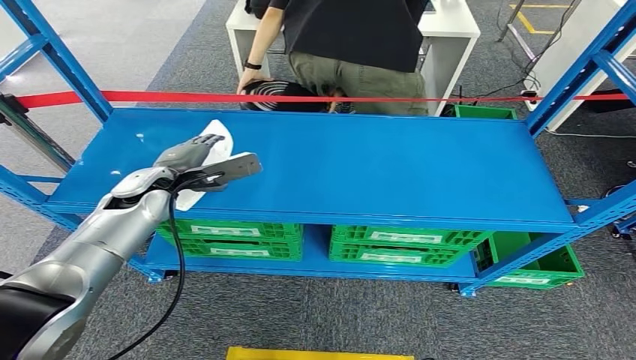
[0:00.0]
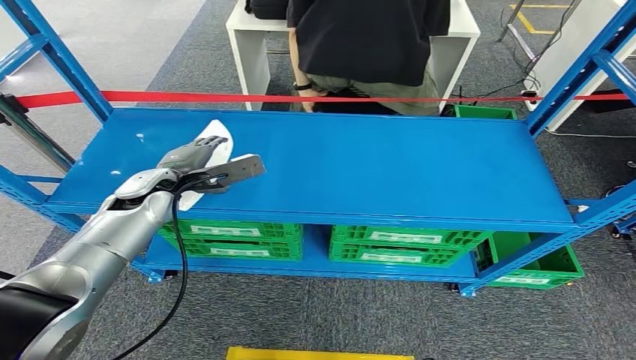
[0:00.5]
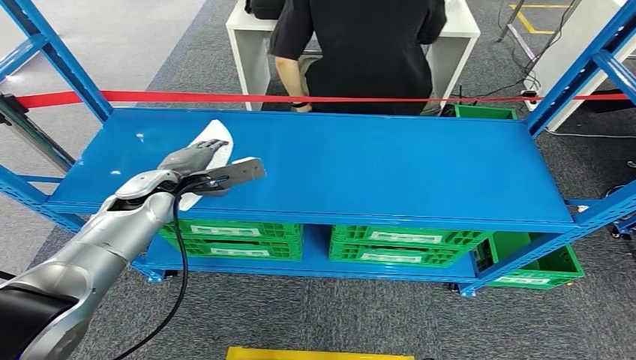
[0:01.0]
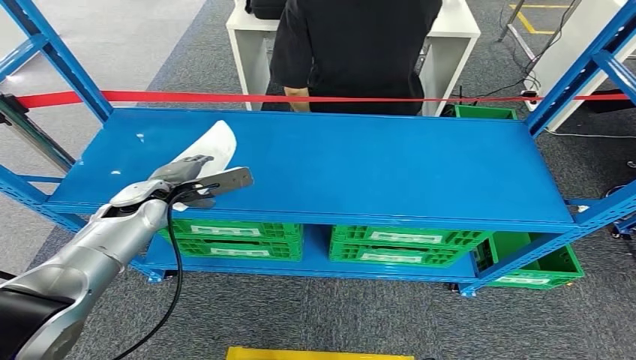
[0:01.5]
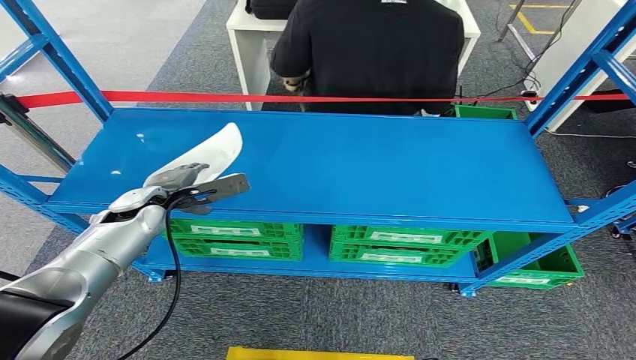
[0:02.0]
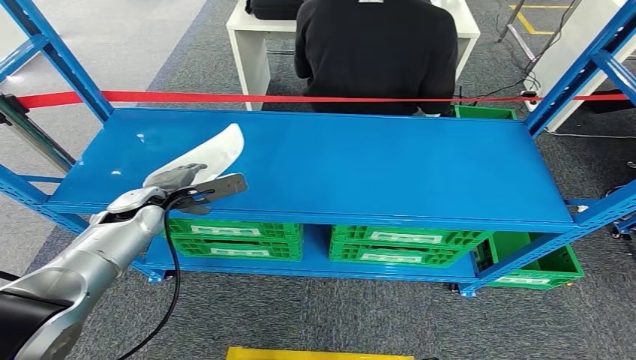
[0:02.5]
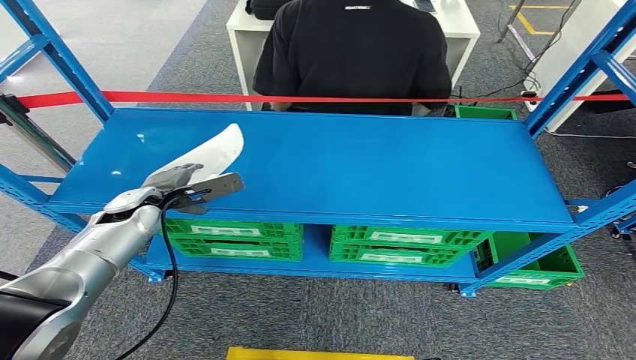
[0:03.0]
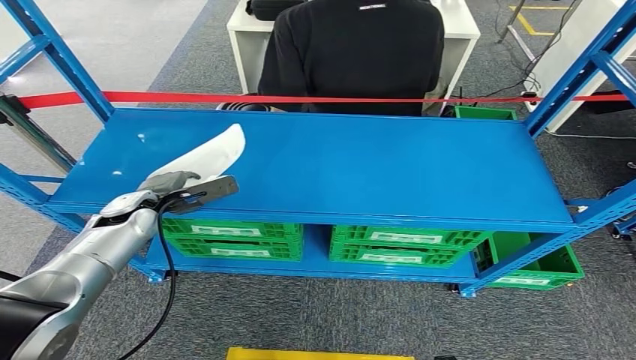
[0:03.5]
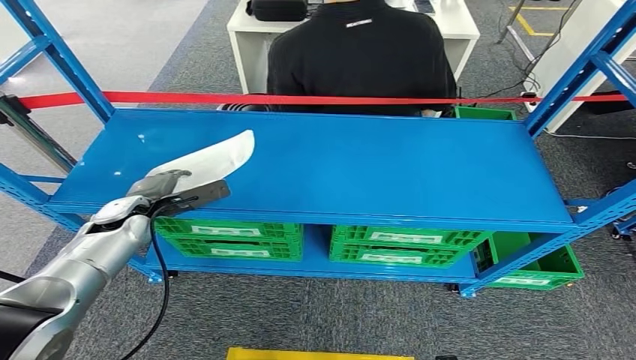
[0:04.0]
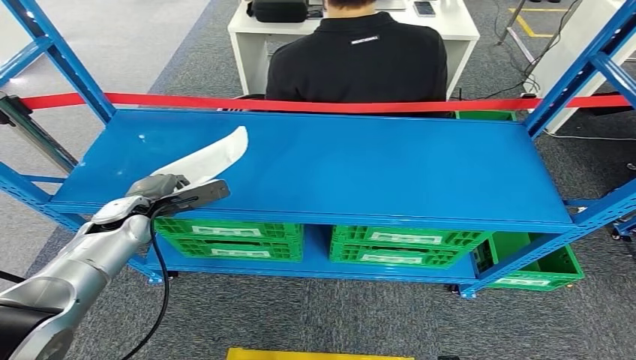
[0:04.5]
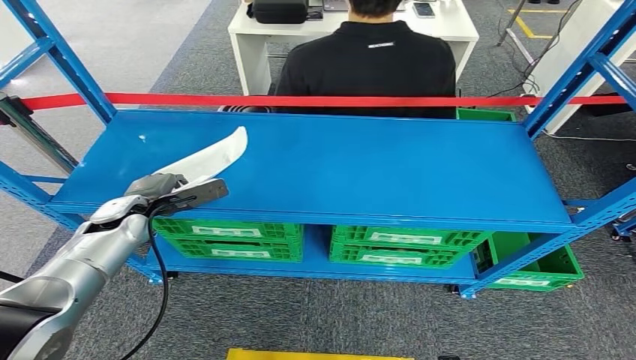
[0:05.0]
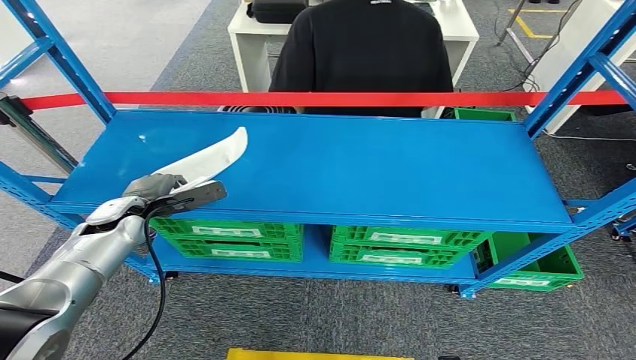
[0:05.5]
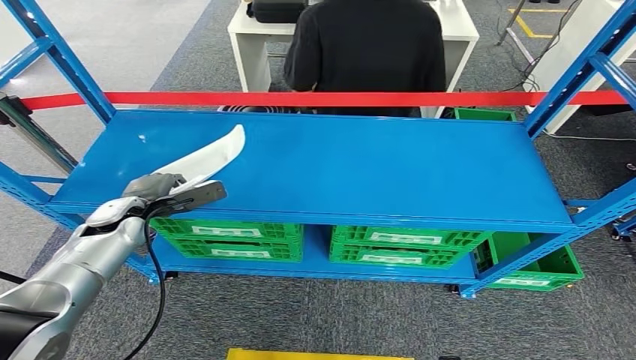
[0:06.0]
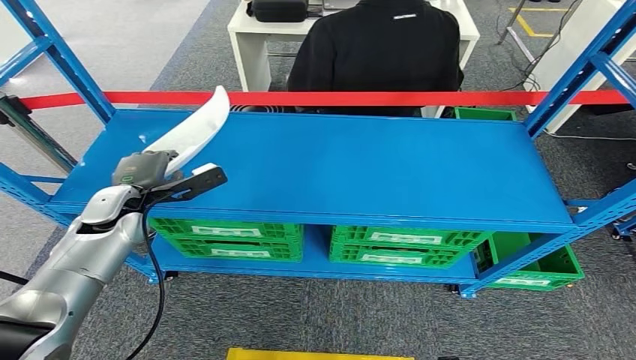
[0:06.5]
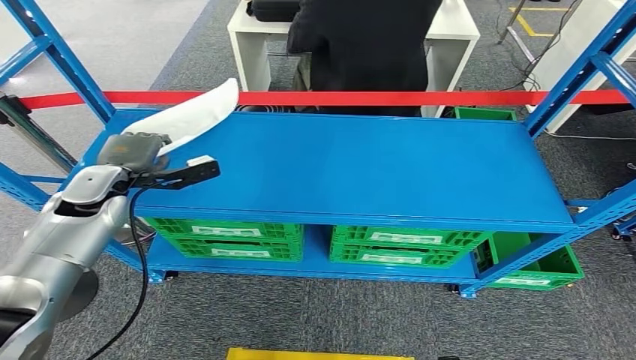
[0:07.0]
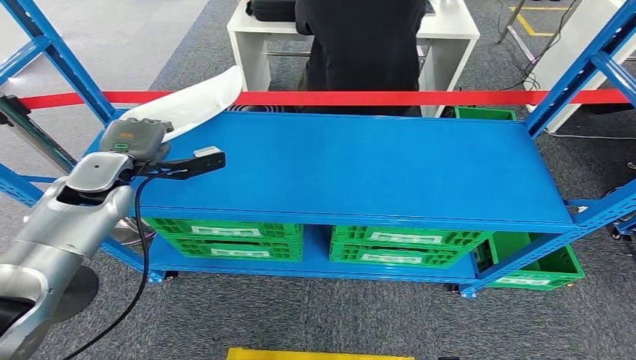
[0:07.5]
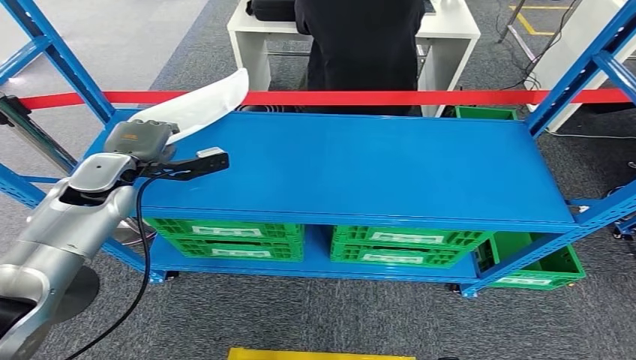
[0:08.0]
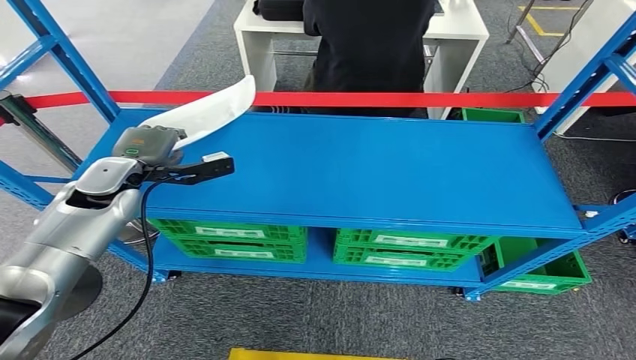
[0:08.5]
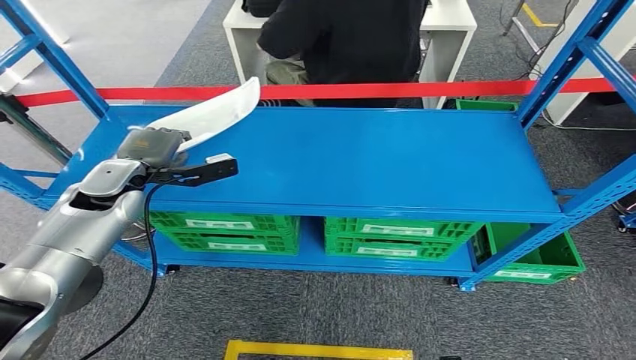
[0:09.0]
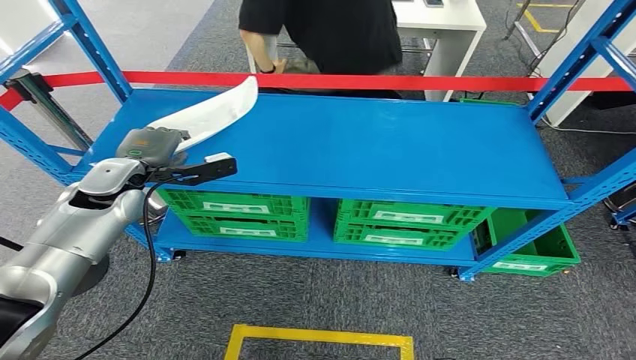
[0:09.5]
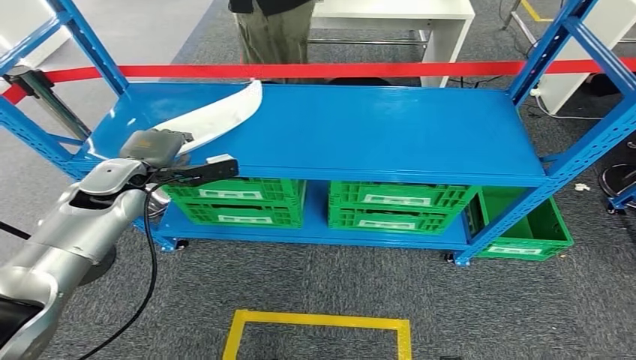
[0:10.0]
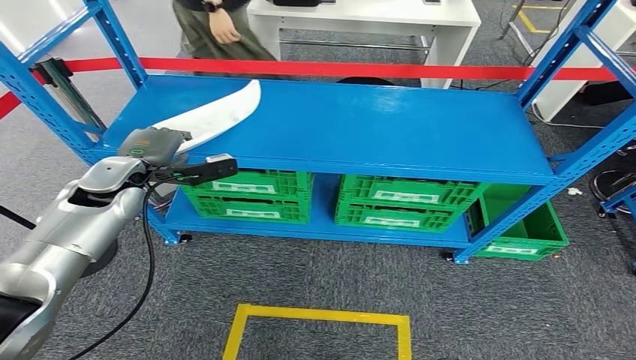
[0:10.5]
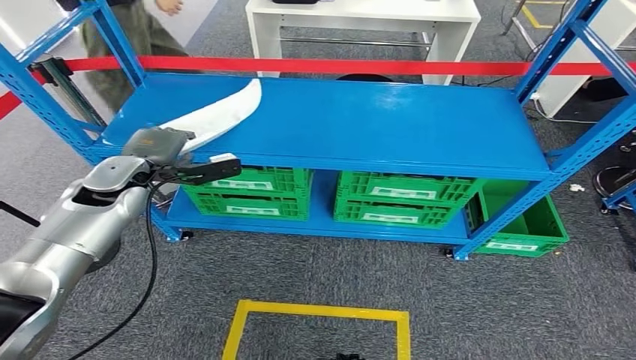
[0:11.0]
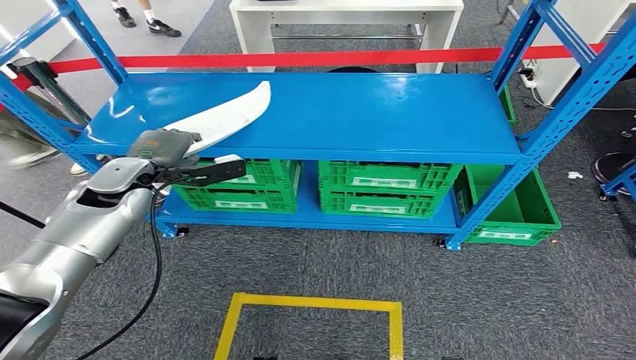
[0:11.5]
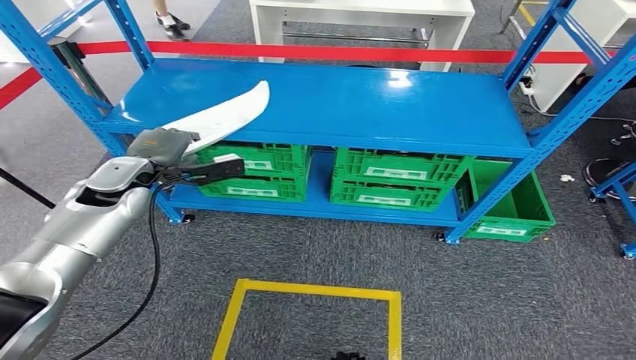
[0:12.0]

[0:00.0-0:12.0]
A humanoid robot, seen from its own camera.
Step, 0:00.0 to 0:07.5: Pick up the small parts from the shelf.
0:00.0 to 0:02.0: The left hand shifts by roughly 5 cm.
0:02.0 to 0:06.0: The hands make only small movements.
0:06.0 to 0:08.0: The left hand moves upward, roughly 10 cm.

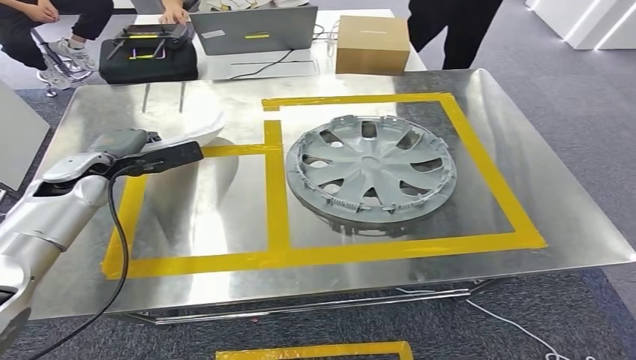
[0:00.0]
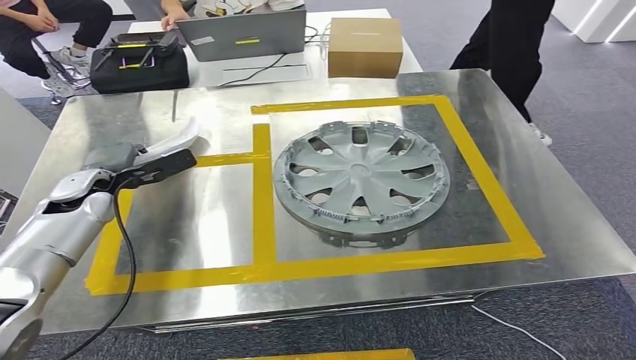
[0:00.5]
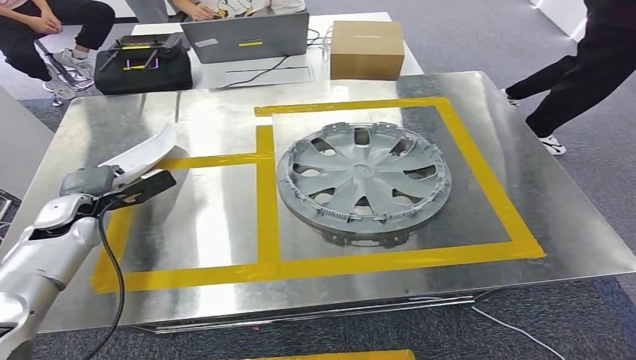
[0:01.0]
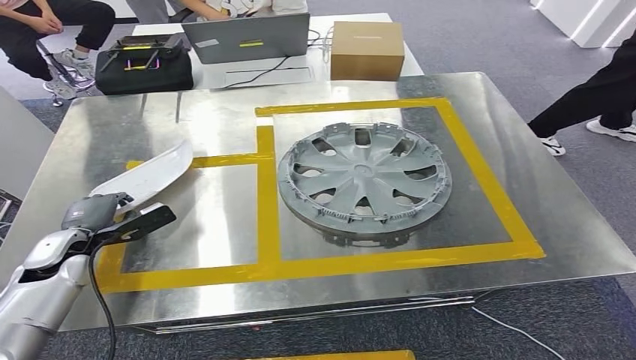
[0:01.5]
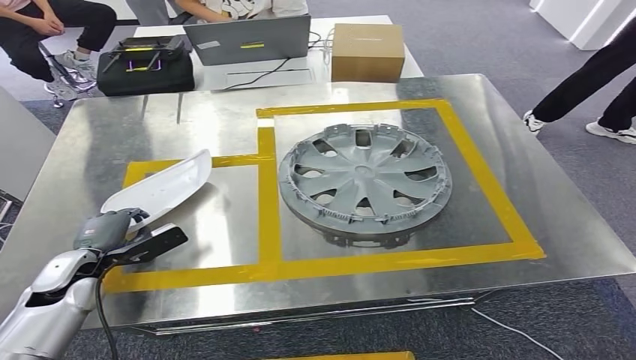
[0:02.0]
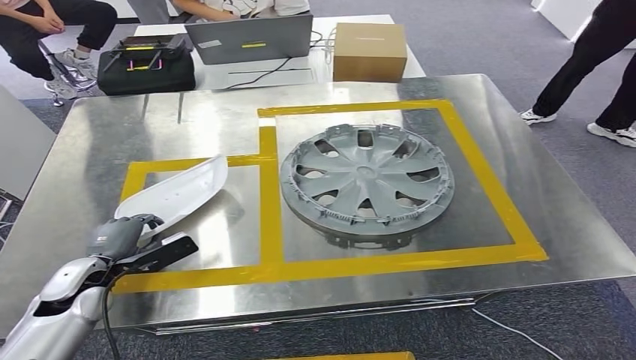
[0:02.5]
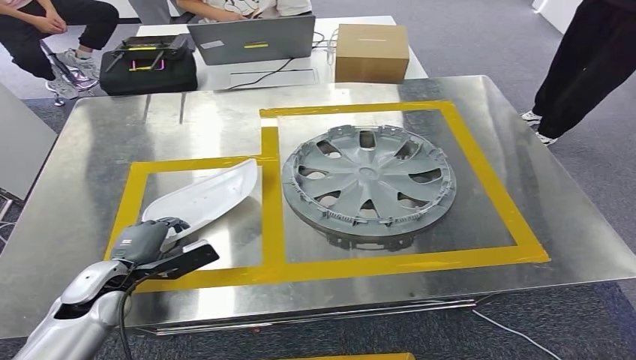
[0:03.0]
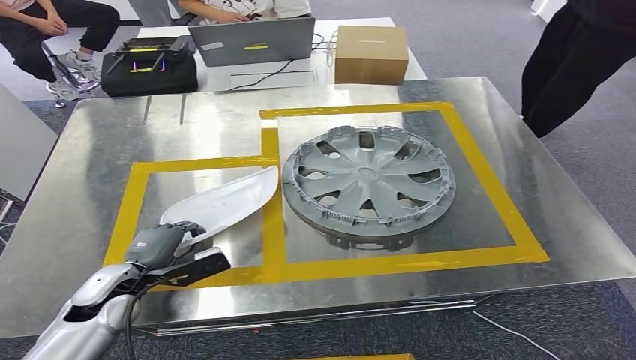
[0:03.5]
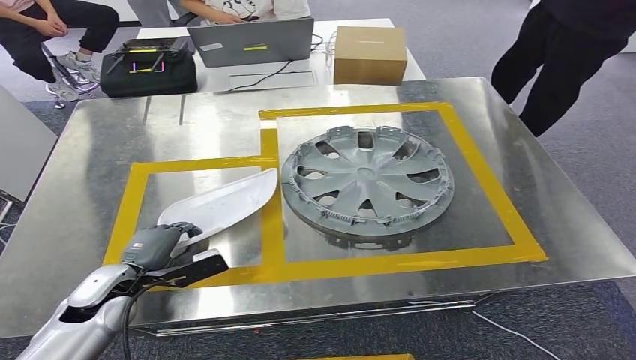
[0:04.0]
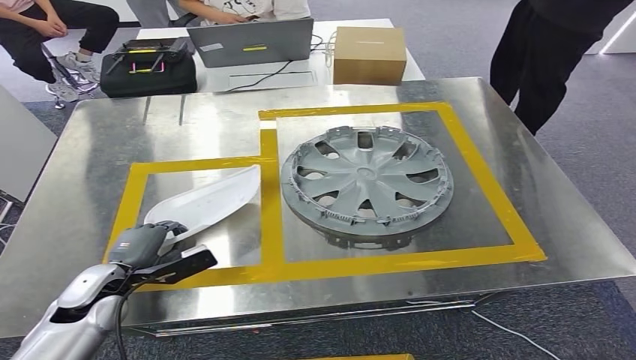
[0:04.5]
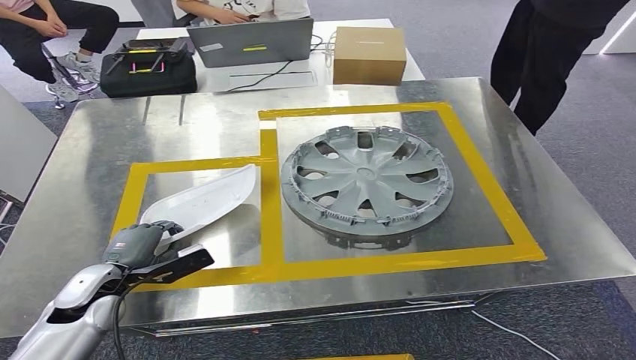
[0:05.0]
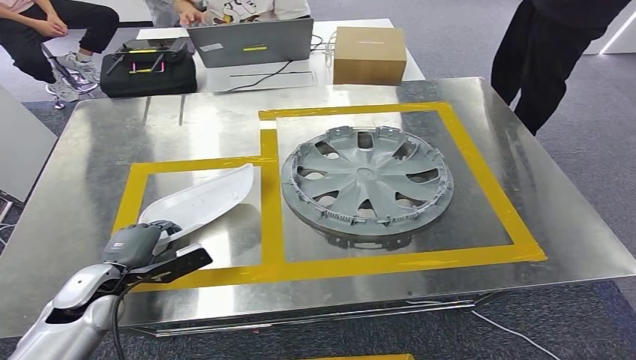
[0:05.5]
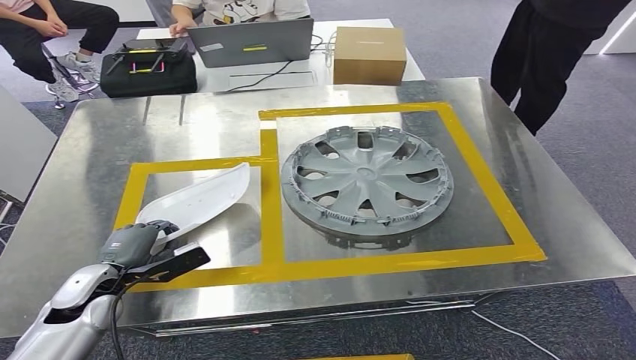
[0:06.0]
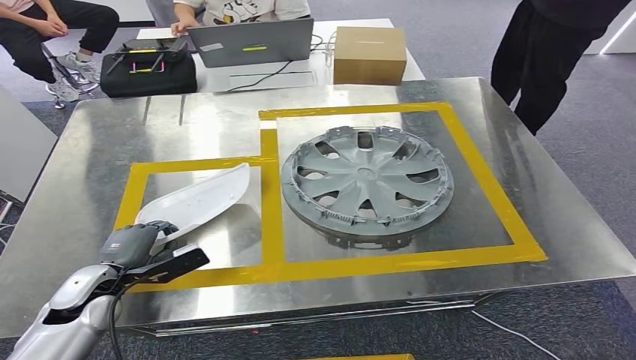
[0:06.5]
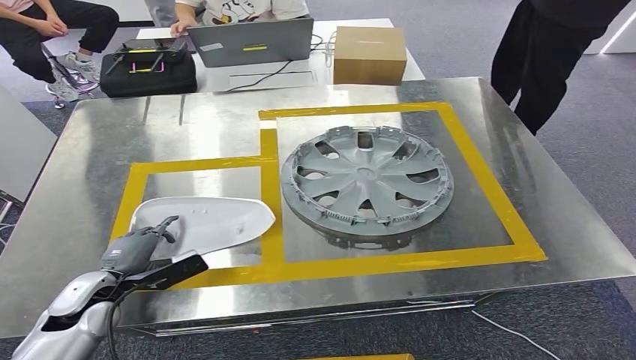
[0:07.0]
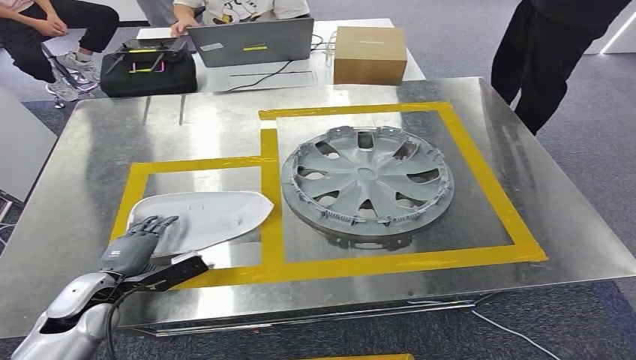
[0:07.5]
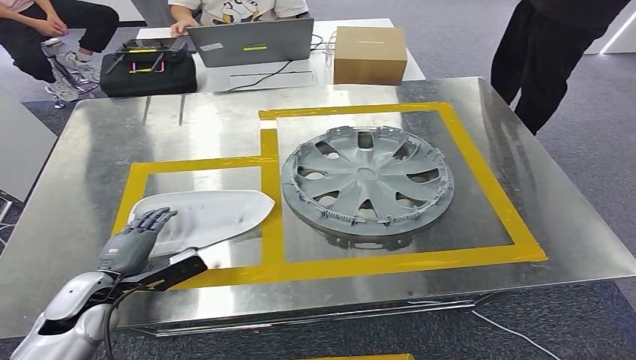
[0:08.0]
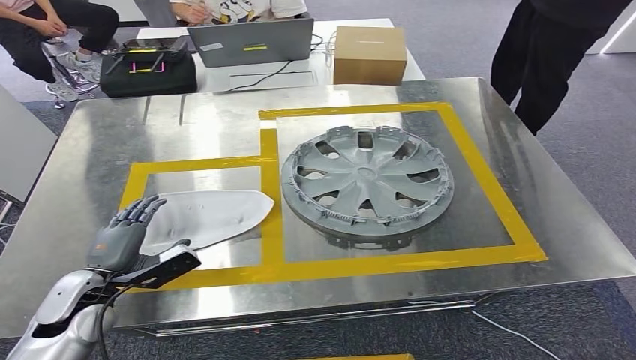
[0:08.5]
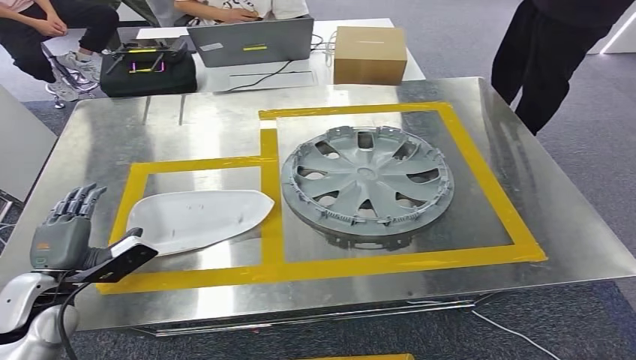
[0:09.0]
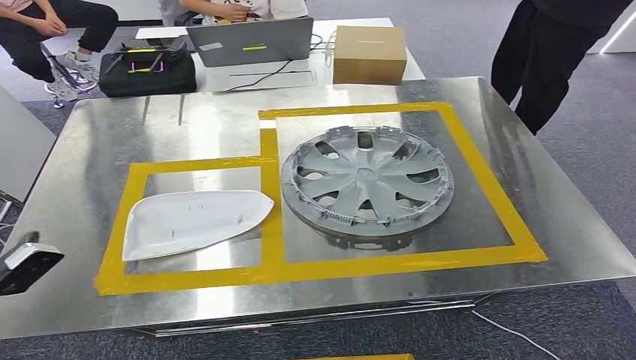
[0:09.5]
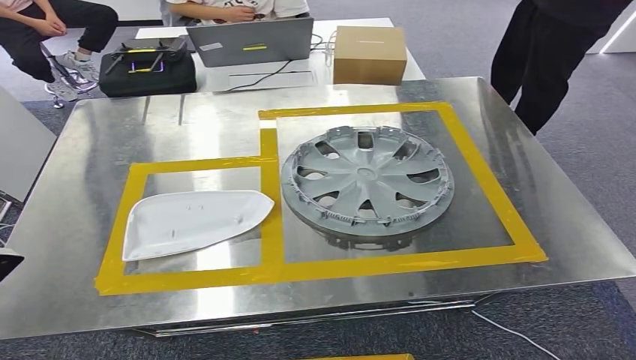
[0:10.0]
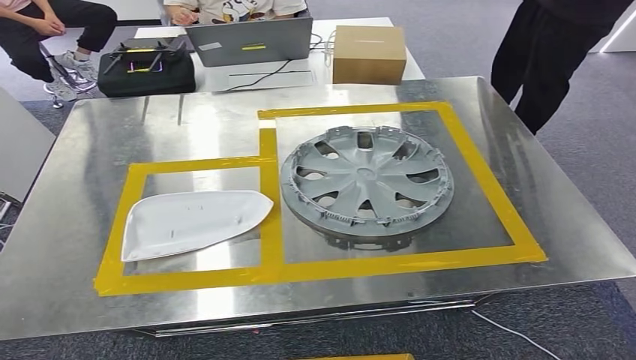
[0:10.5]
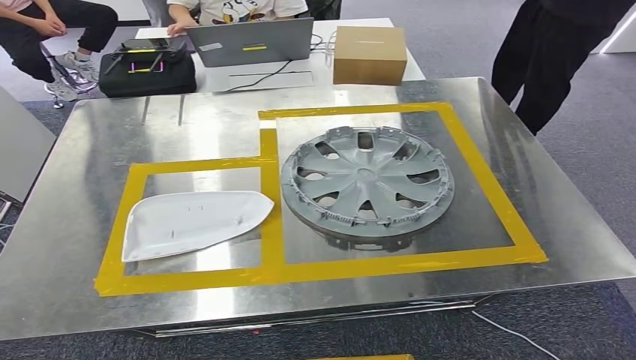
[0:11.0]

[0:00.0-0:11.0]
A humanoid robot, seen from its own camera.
Step, 0:00.0 to 0:10.5: Insert the small parts into the corresponding slots on the workbench.
0:03.5 to 0:07.5: The hands make only small movements.
0:07.5 to 0:09.0: The left hand shifts some 5 cm upward.
0:09.0 to 0:11.0: The left hand goes some 30 cm to the left and backward.
